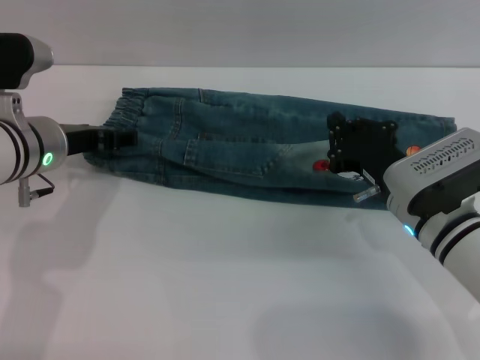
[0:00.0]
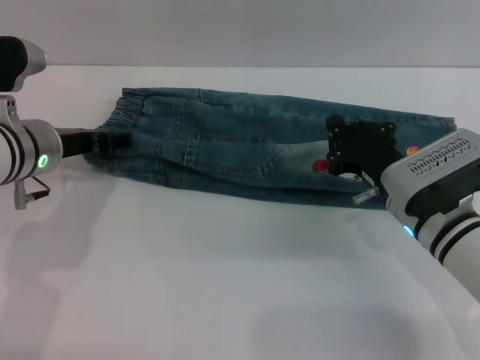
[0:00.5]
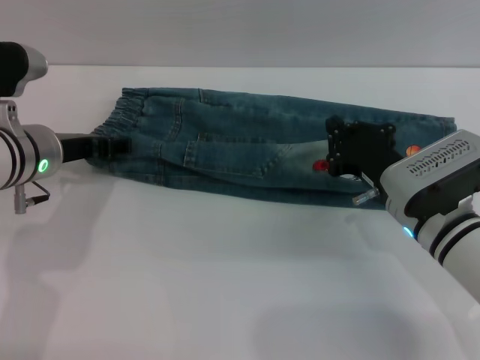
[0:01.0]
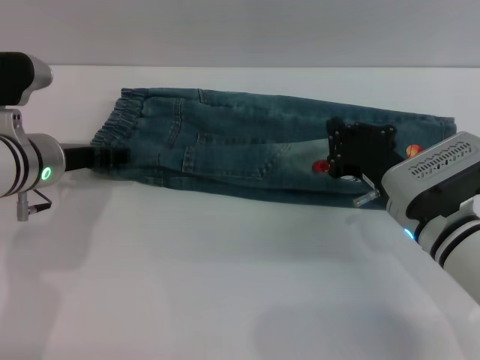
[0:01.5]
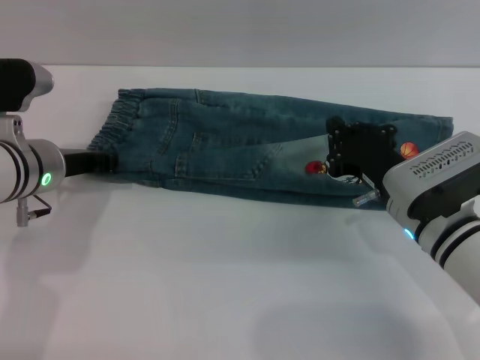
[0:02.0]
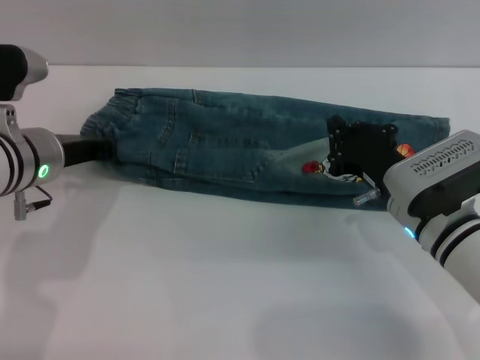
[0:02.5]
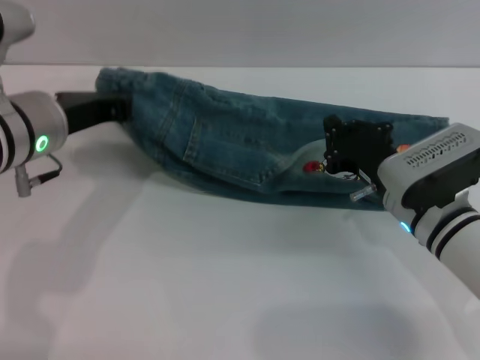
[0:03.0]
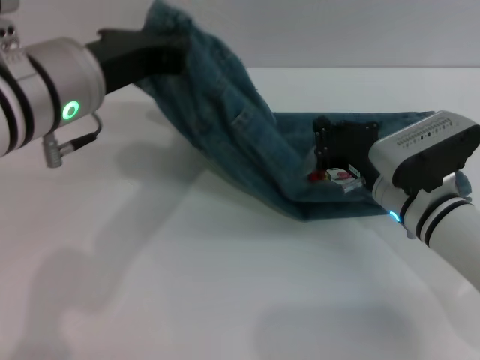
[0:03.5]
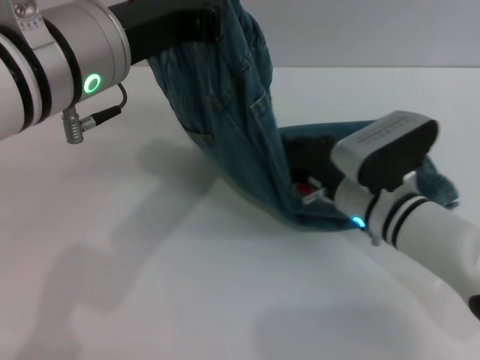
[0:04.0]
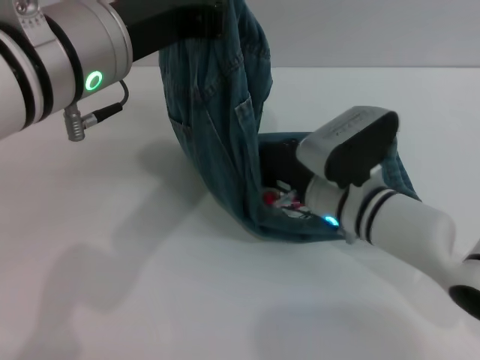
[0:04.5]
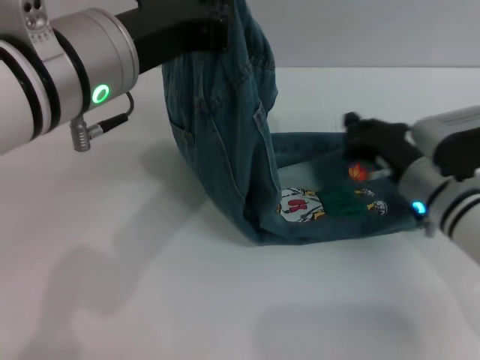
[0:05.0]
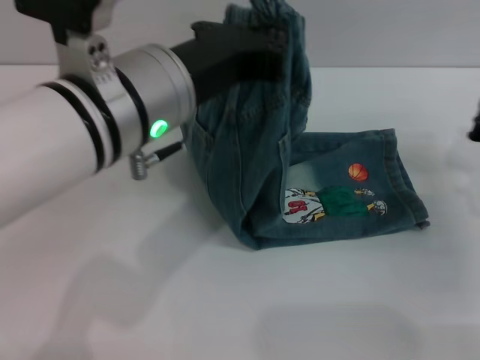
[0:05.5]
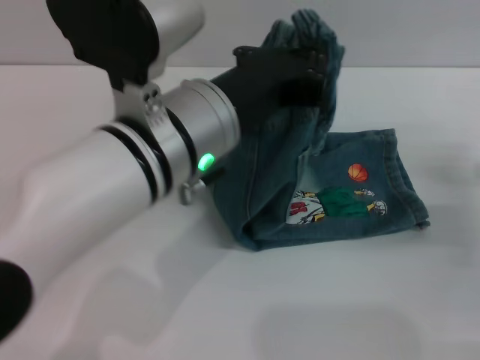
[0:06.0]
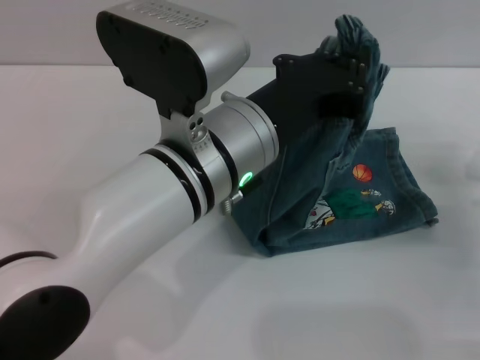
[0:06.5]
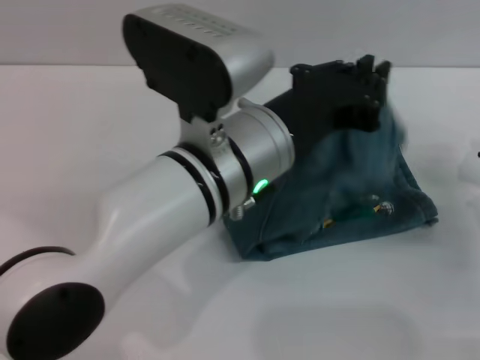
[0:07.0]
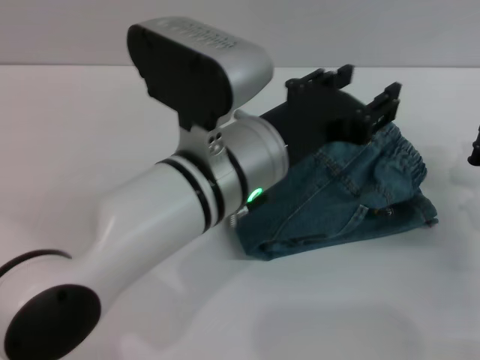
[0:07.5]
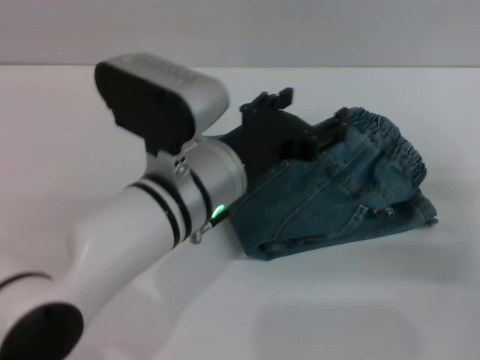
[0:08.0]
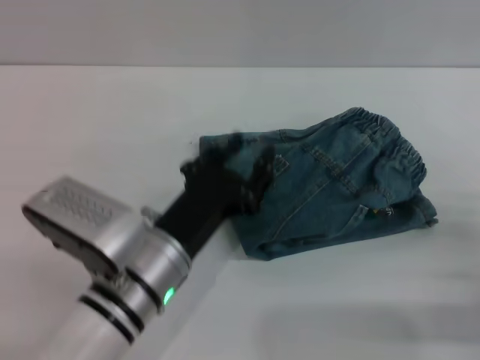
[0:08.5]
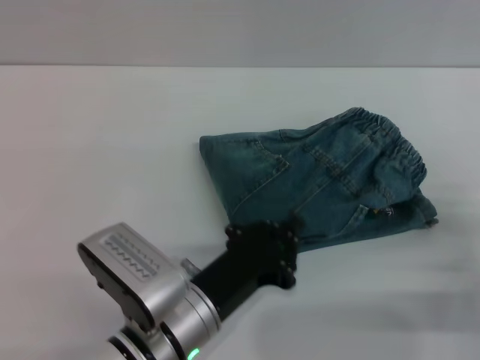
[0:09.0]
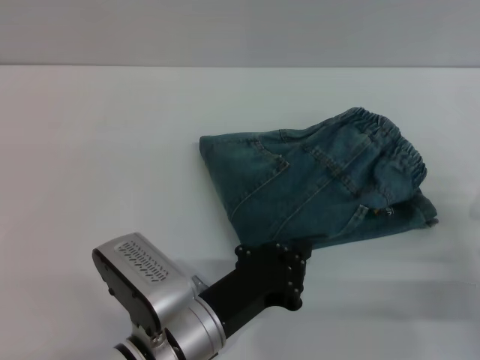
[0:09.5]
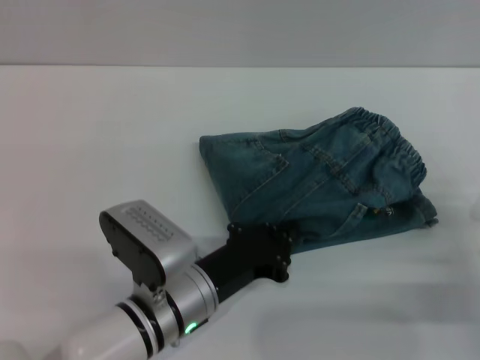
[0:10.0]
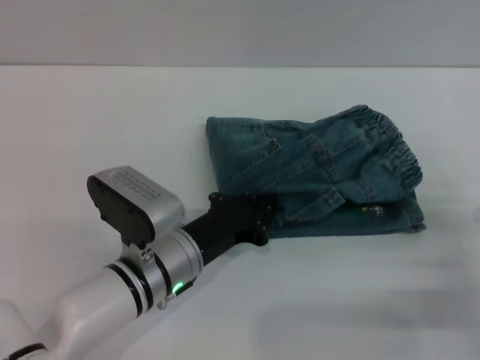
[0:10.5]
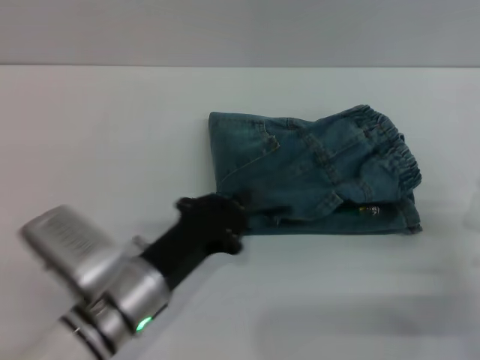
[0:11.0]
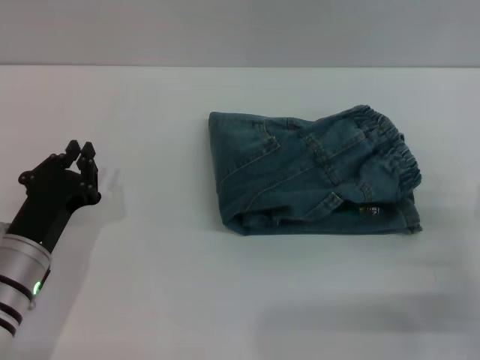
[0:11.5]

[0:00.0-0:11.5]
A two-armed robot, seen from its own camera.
Step, 0:00.0 to 0:07.5: Fold the pants from left to right with the left gripper.
Step, 0:08.0 to 0:11.0: Place the folded trousers onto the center area with the left grippers.
0:00.0 to 0:02.0: The left gripper closes its fingers.
0:02.0 to 0:04.0: The left gripper goes roughly 20 cm upward and to the right, and closes up.
0:04.0 to 0:06.0: The left gripper shifts approximately 10 cm to the right and downward. Meanwhile the right gripper moves to the right, approximately 20 cm.
0:06.0 to 0:07.5: The left gripper opens.
0:07.5 to 0:09.5: The right gripper is displaced backward by some 5 cm. Meanwhile the left gripper shifts some 15 cm downward and backward, and closes.
0:09.5 to 0:11.5: The left gripper shifts roughly 15 cm to the left.

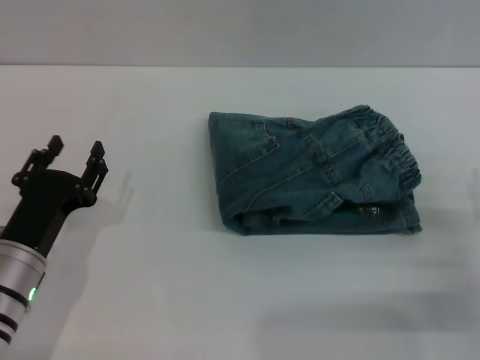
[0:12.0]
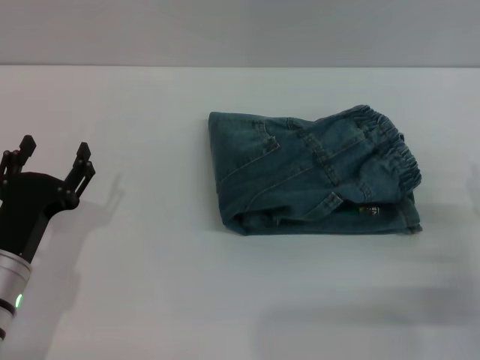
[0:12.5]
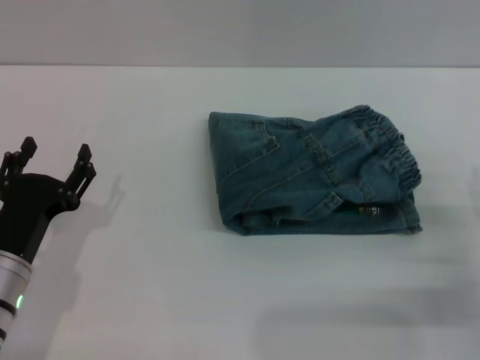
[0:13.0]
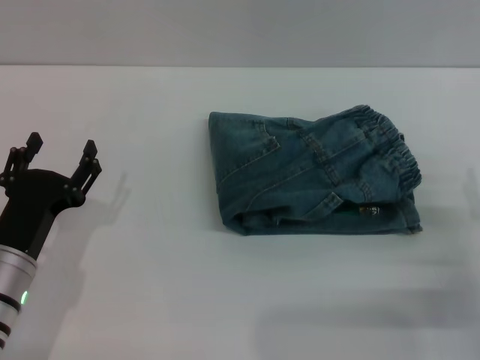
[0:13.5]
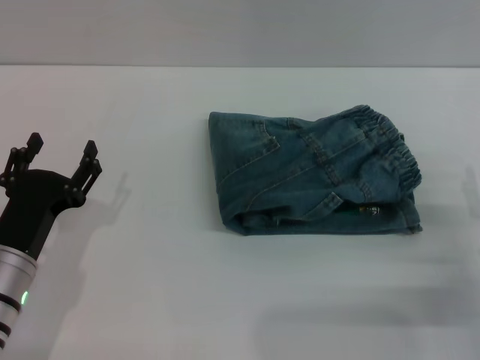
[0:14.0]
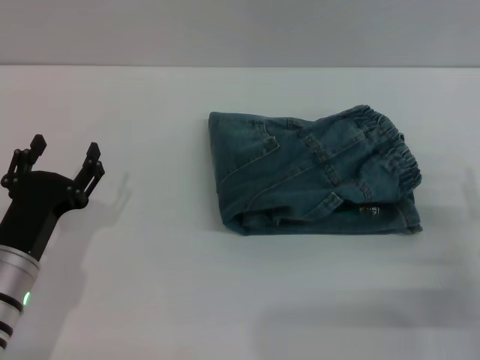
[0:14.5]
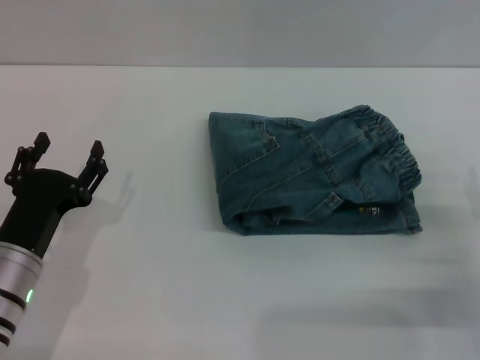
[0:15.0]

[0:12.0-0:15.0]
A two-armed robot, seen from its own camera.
0:12.0 to 0:13.5: The left gripper opens.
0:13.5 to 0:15.0: Neither gripper changes place.
